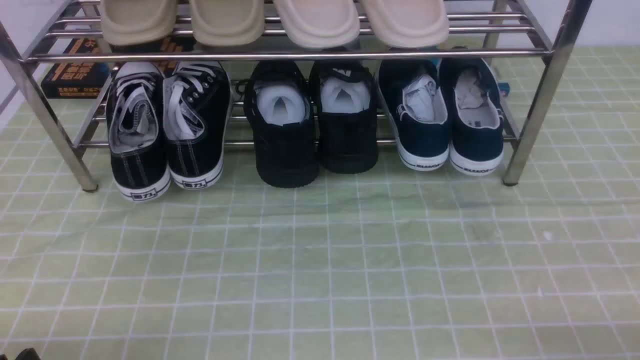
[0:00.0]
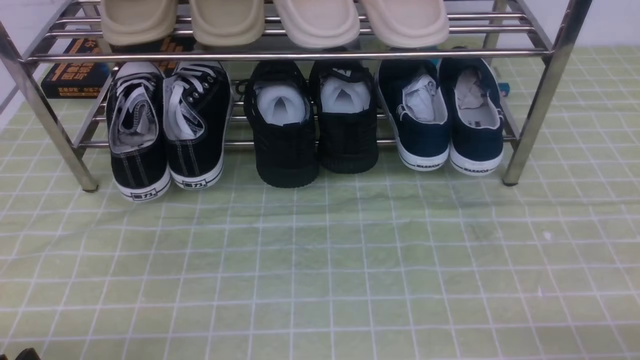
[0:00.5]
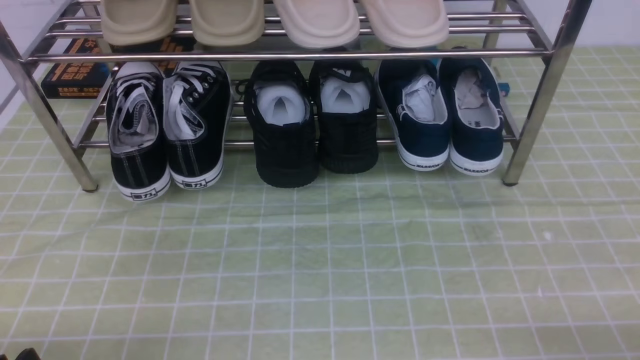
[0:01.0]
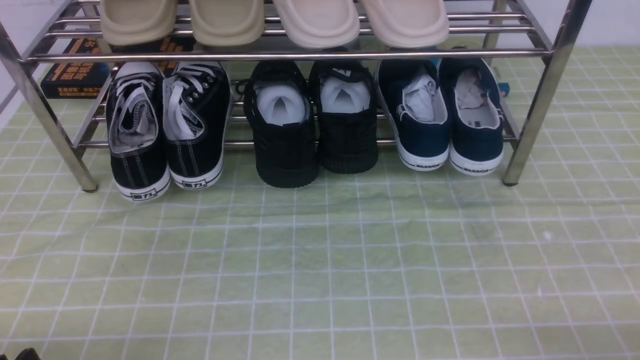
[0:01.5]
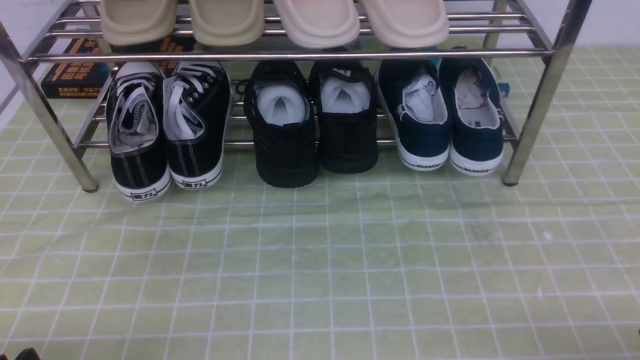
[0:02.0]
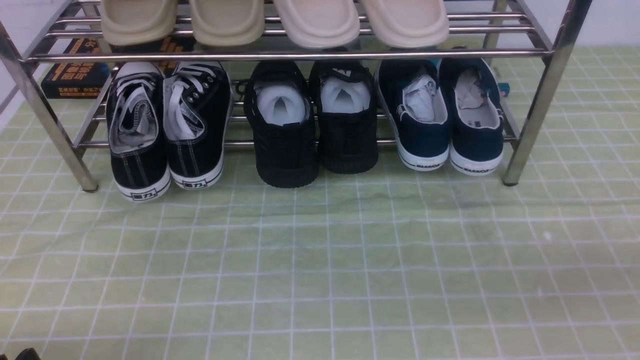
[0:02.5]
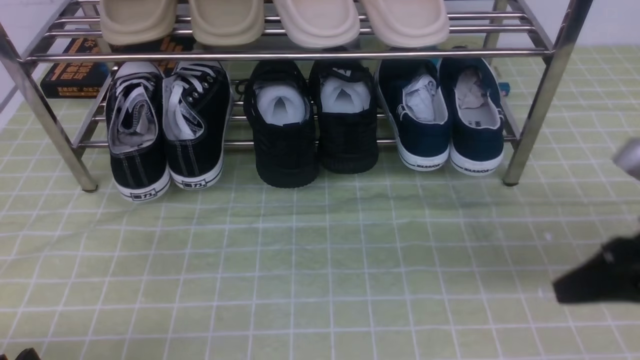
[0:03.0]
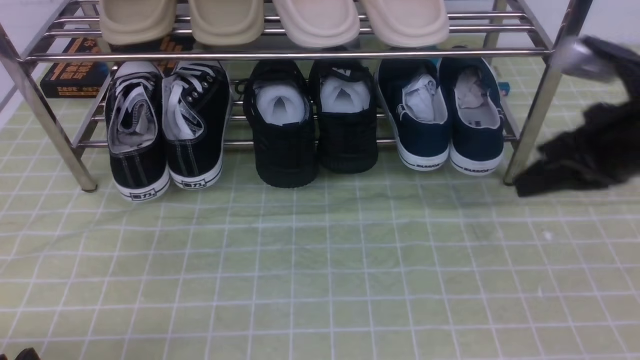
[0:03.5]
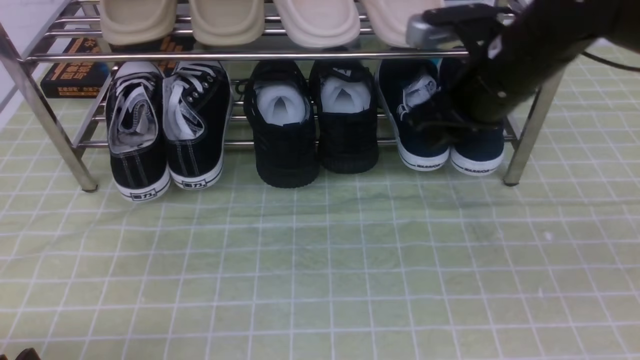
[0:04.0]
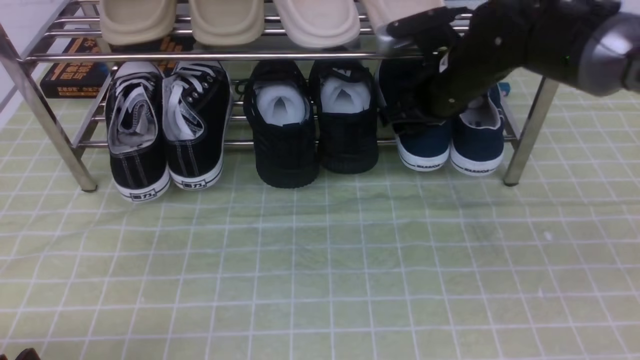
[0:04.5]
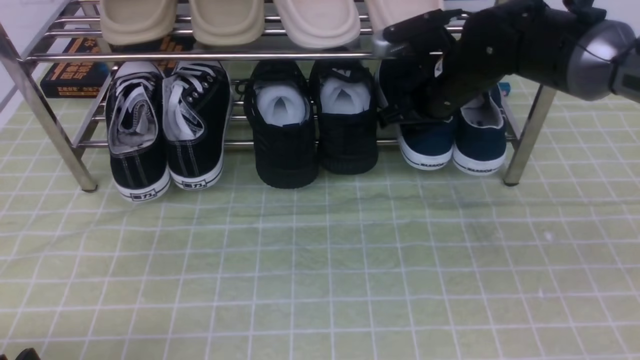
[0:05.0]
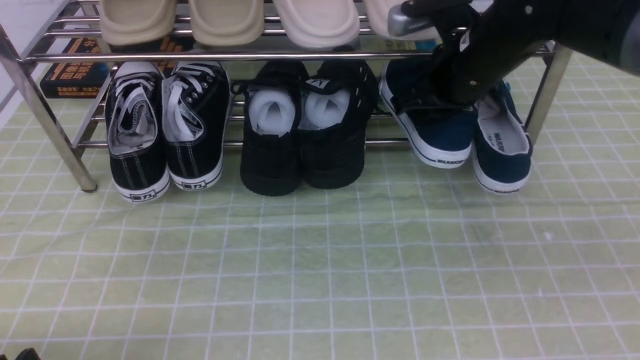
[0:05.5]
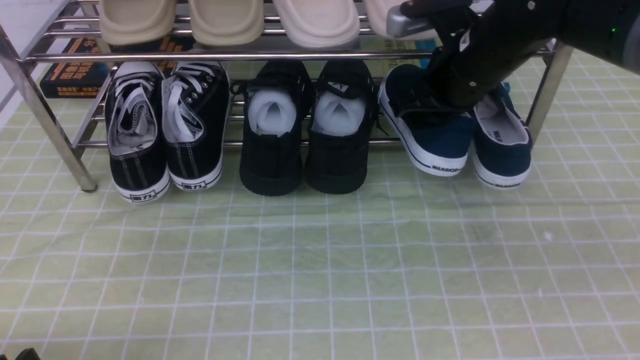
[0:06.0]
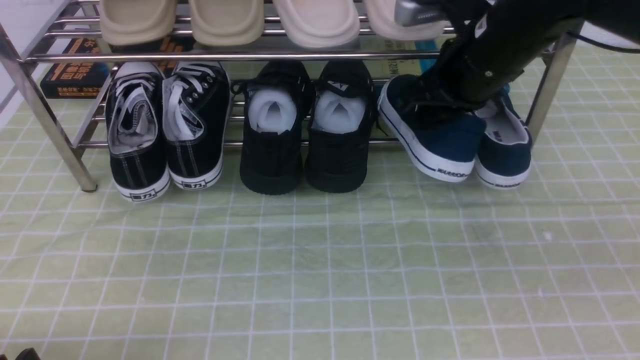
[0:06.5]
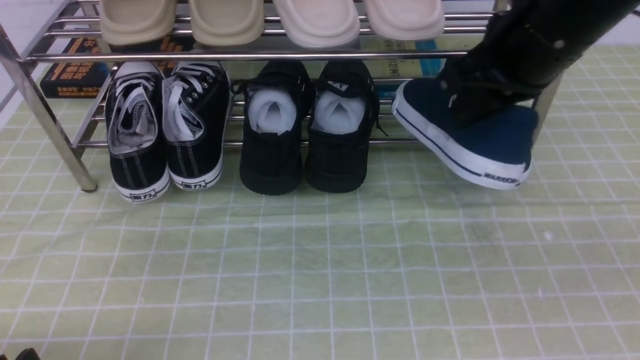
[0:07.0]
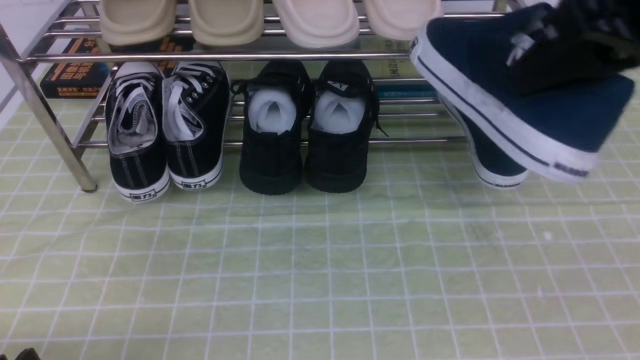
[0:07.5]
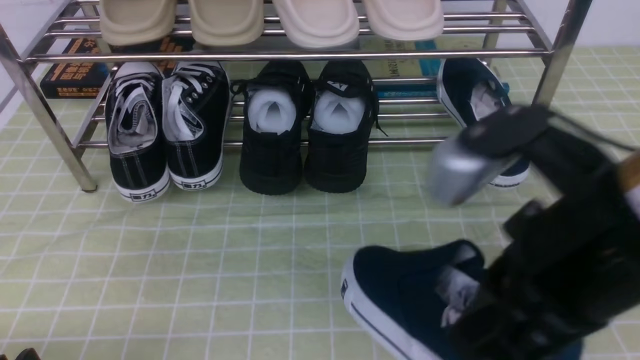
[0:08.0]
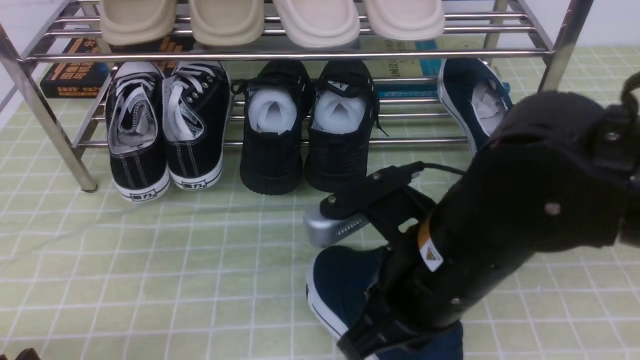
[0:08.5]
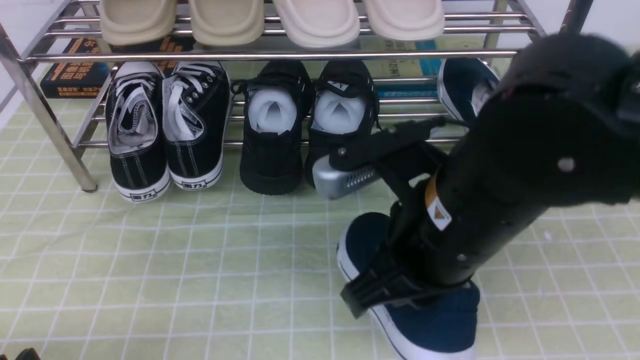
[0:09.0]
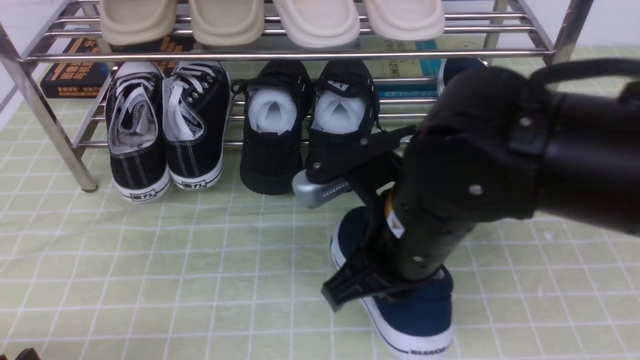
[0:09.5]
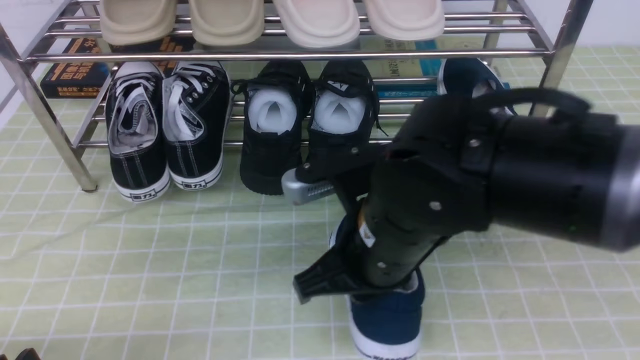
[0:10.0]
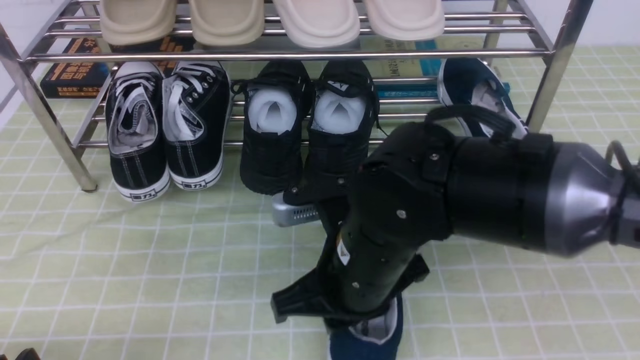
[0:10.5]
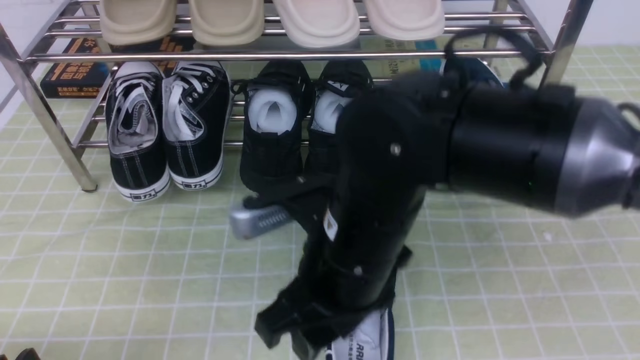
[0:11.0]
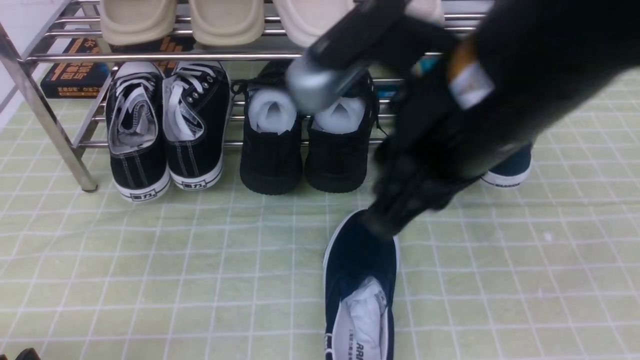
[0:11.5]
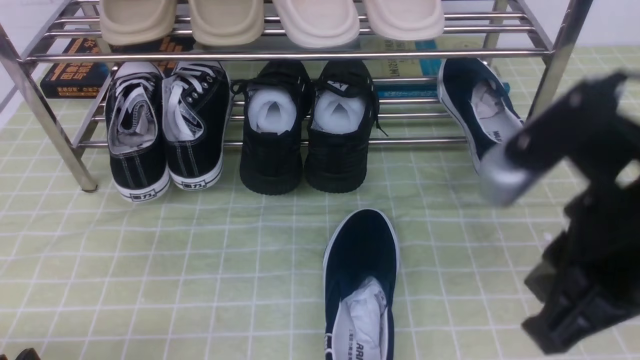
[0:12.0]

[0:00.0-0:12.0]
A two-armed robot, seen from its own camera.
Step, 0:00.0 to 0:04.5: use the right arm to clamp a shoe on the right side of the shoe rack.
Step, 0:05.0 to 0:11.0: use the right arm to take out the clamped shoe from the shoe rack and put it down.
0:02.0 to 0:04.0: The right gripper shifts approximately 35 cm forward, to the left and upward, and closes and opens again.
0:04.0 to 0:06.0: The right gripper closes its fingers.
0:06.0 to 0:08.0: The right gripper moves backward, approximately 25 cm.
0:08.0 to 0:10.0: The right gripper heads downward, to the left and forward, covering approximately 15 cm.
0:10.0 to 0:12.0: The right gripper goes roughly 15 cm to the right, upward and backward, and opens, then closes once more.

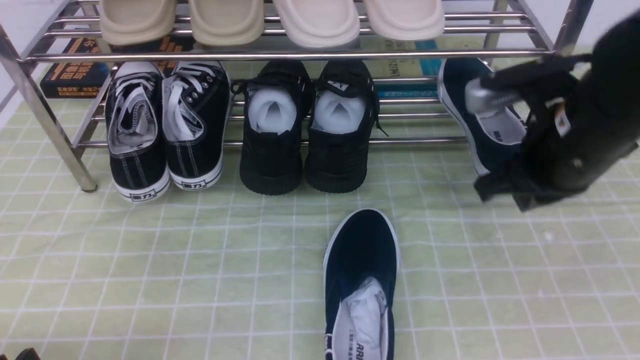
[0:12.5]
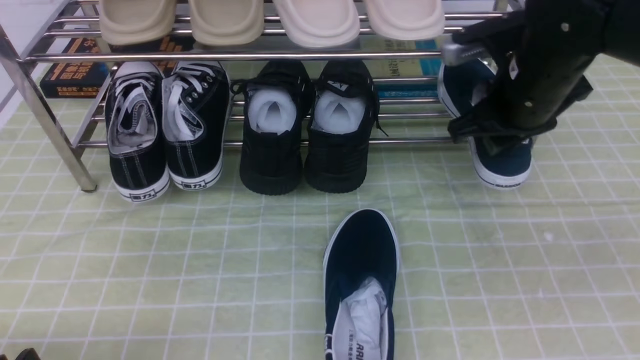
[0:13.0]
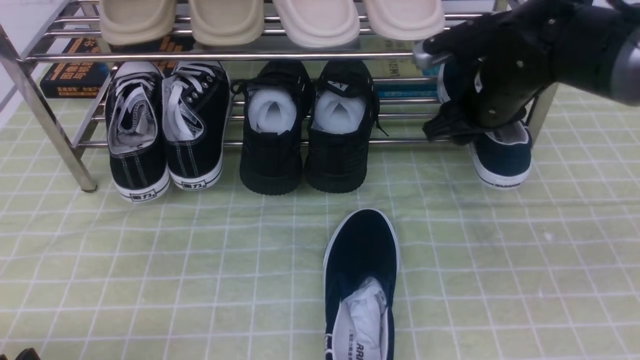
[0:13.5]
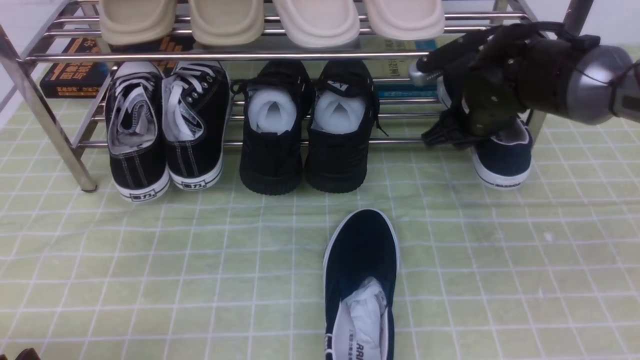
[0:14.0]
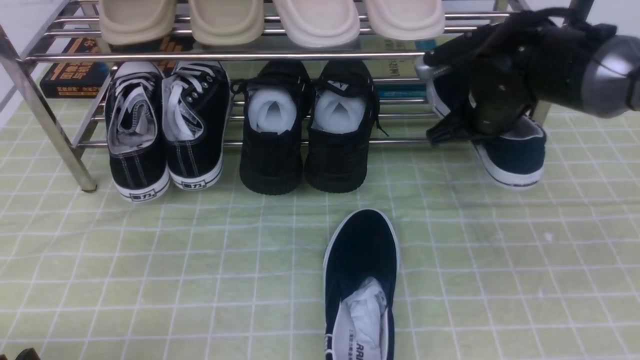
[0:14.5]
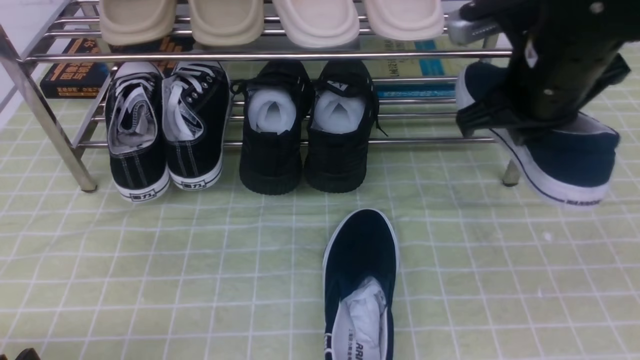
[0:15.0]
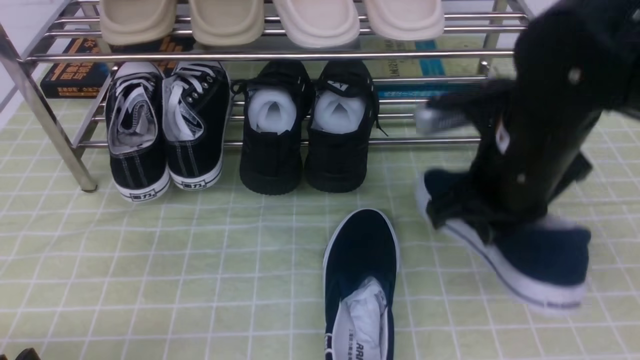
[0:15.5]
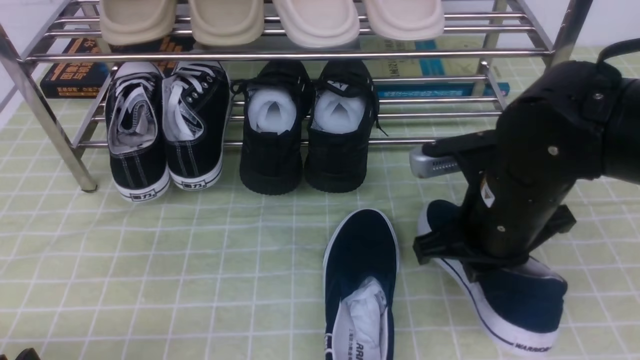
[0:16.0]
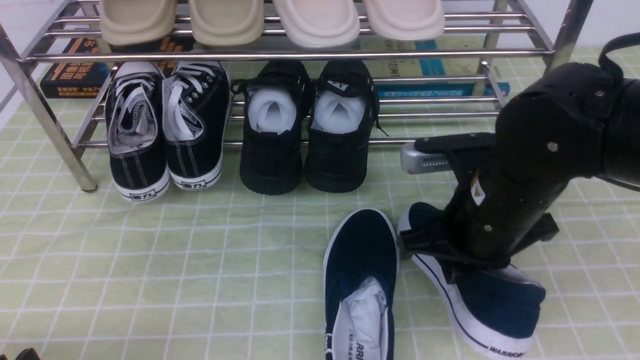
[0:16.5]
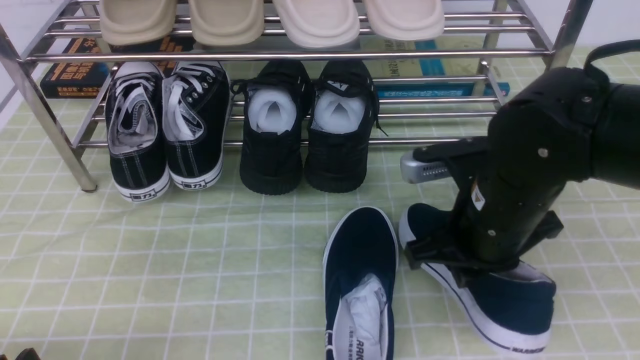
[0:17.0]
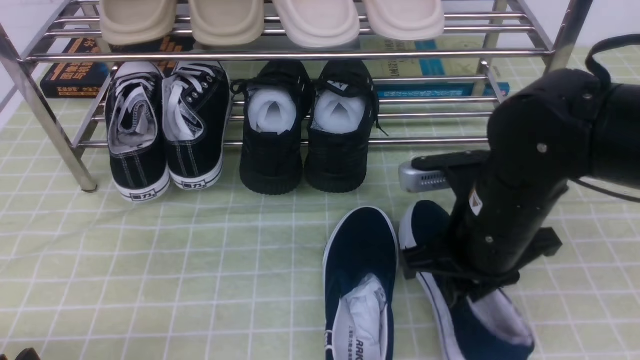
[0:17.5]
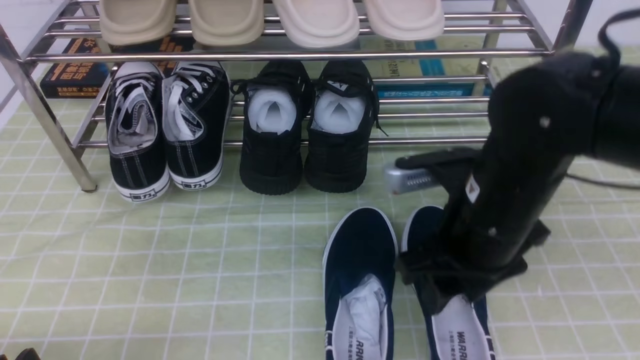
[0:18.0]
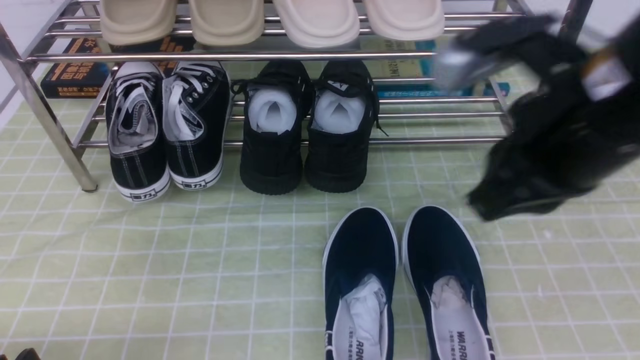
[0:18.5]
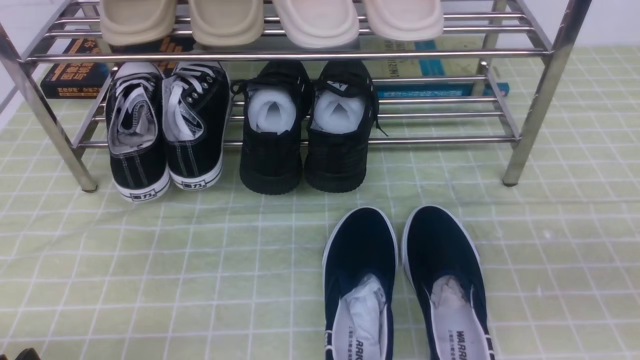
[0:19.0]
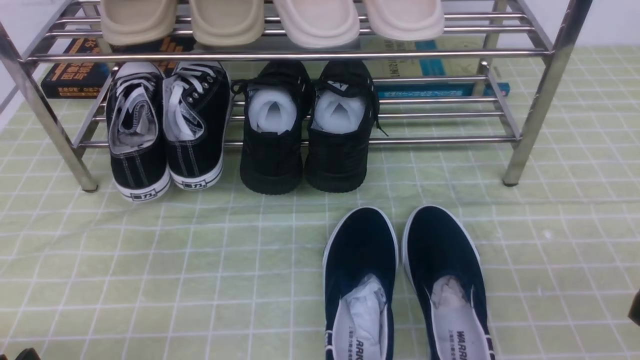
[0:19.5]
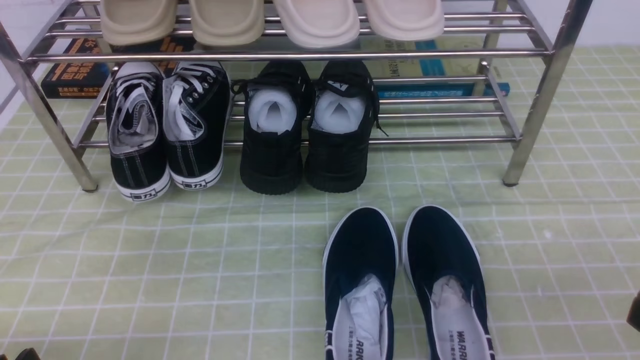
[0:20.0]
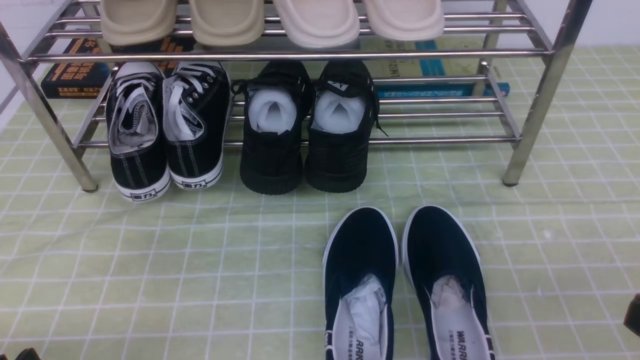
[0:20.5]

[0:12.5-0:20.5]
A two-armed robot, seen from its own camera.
Step, 0:14.5 to 0:18.0: use the right arm to take out the clamped shoe from the shoe rack and put it down.
0:12.5 to 0:14.5: The right gripper is displaced forward by some 10 cm, and opens, then closes once more.
0:14.5 to 0:16.5: The right gripper goes roughly 15 cm backward.
0:16.5 to 0:18.5: The right gripper is displaced upward and backward by roughly 15 cm, and opens, then closes again.
0:18.5 to 0:20.5: The right gripper moves backward, downward and to the right, about 20 cm.
